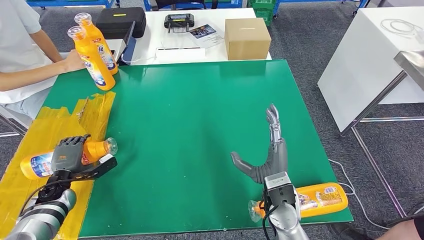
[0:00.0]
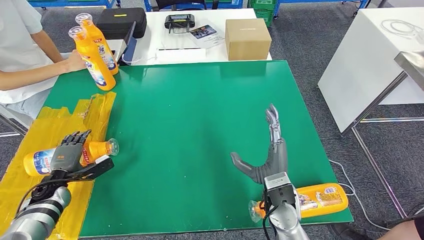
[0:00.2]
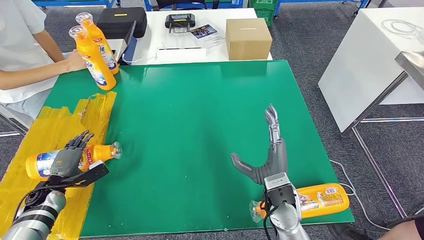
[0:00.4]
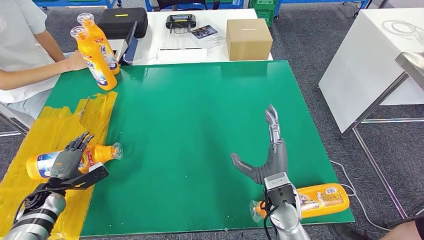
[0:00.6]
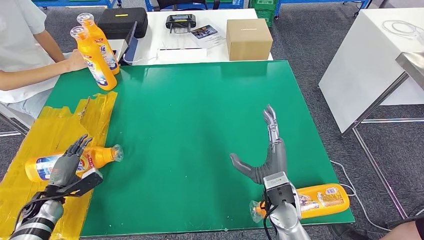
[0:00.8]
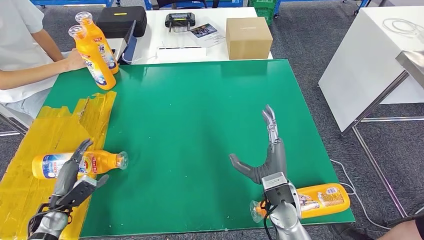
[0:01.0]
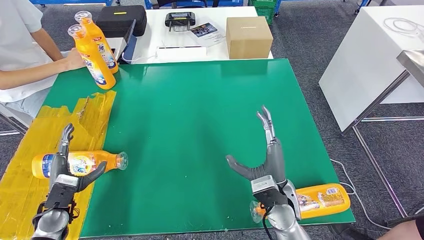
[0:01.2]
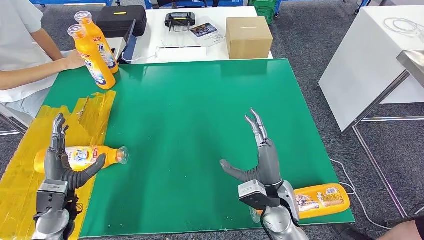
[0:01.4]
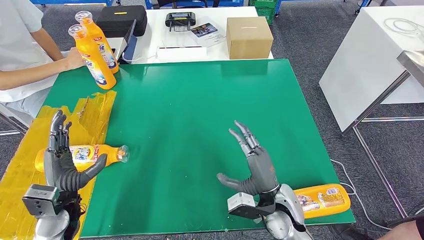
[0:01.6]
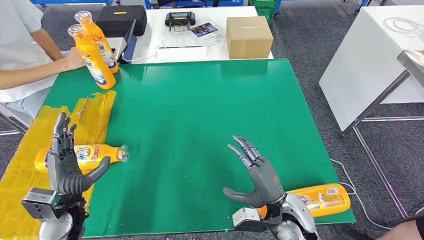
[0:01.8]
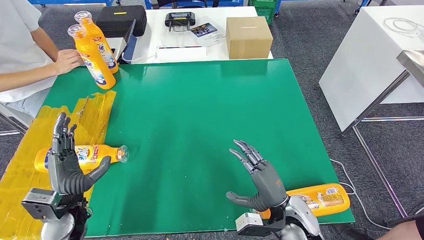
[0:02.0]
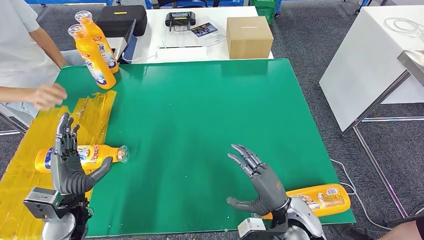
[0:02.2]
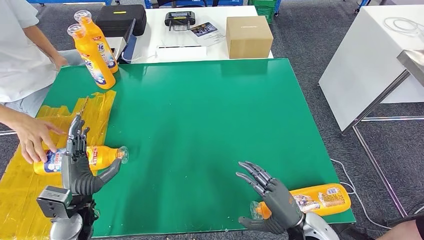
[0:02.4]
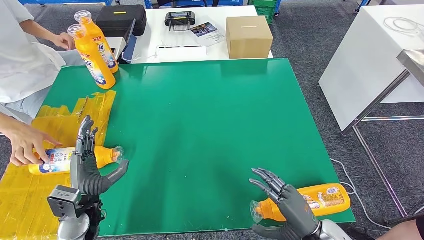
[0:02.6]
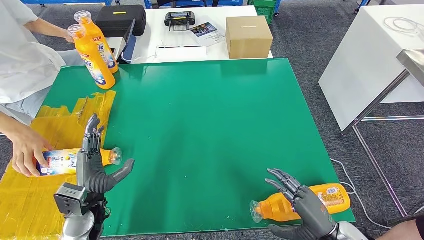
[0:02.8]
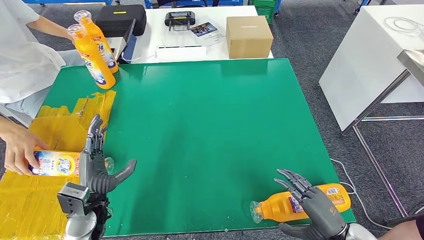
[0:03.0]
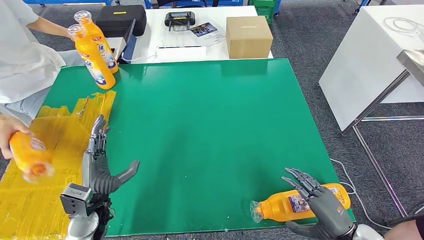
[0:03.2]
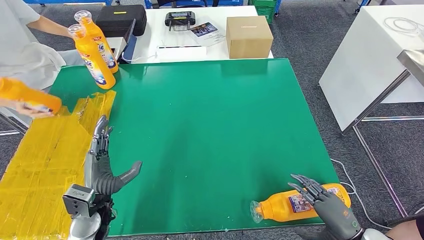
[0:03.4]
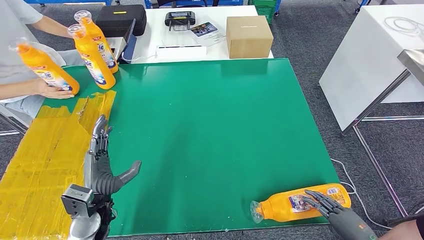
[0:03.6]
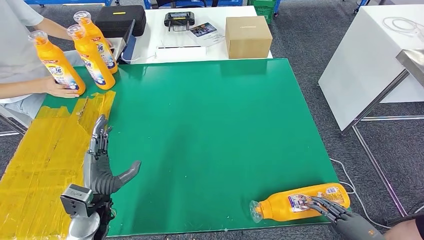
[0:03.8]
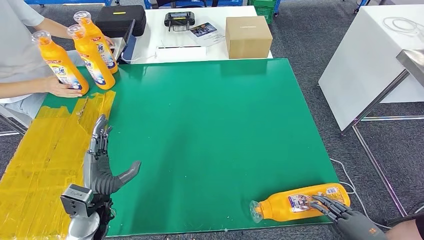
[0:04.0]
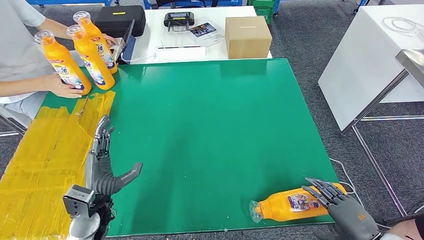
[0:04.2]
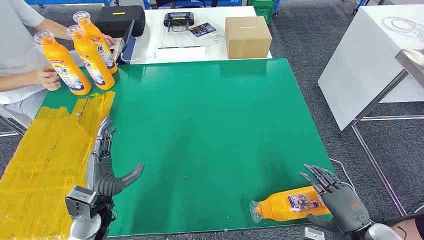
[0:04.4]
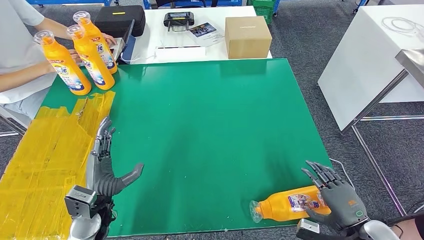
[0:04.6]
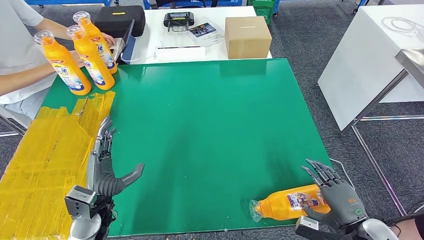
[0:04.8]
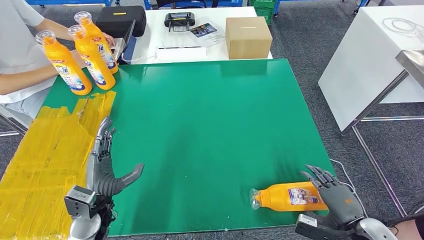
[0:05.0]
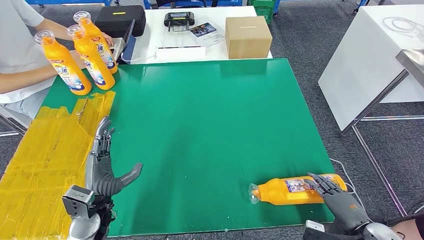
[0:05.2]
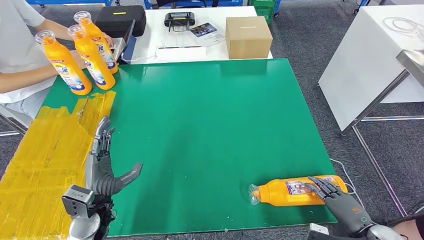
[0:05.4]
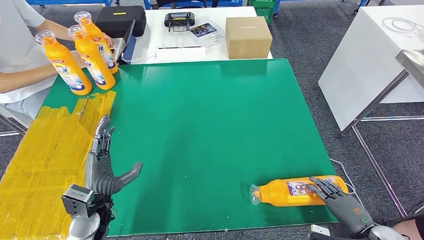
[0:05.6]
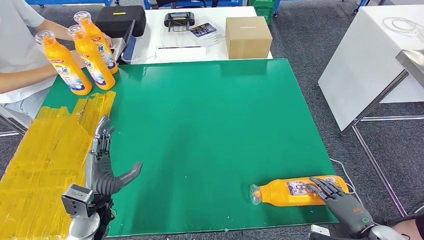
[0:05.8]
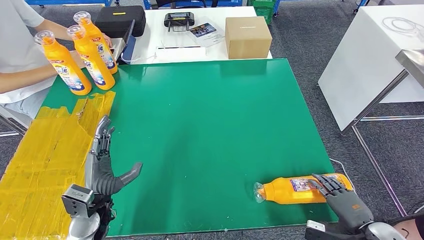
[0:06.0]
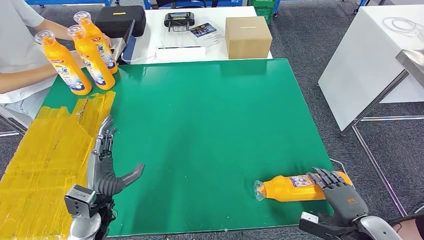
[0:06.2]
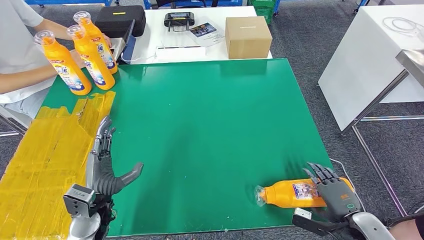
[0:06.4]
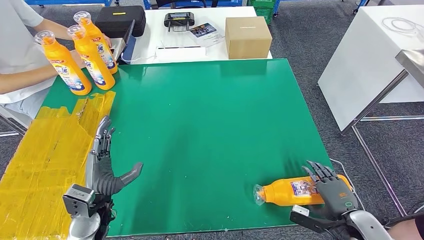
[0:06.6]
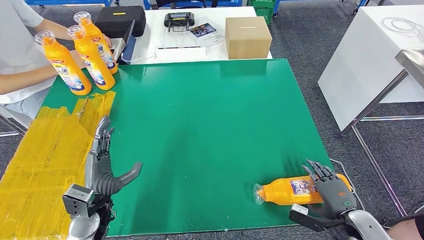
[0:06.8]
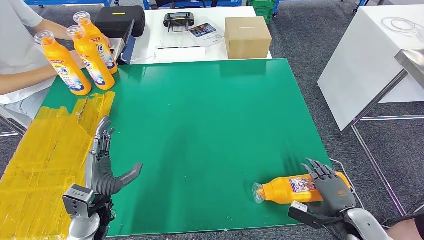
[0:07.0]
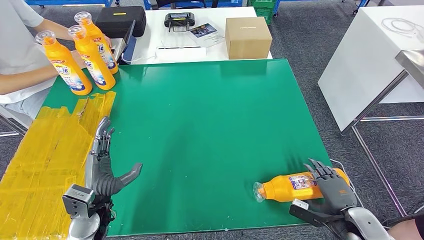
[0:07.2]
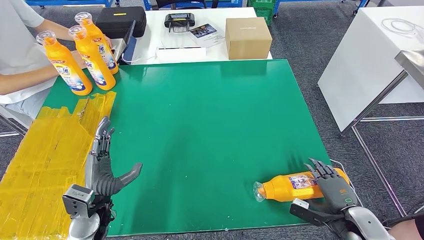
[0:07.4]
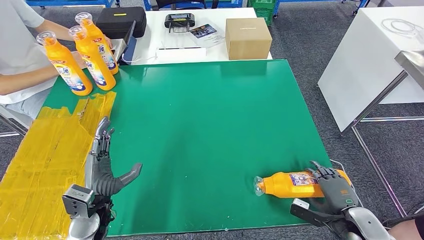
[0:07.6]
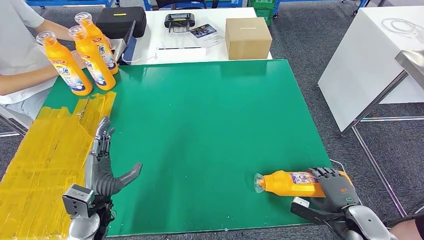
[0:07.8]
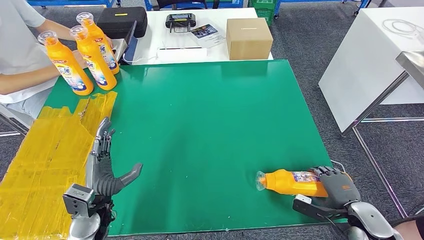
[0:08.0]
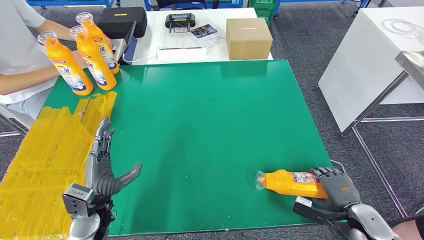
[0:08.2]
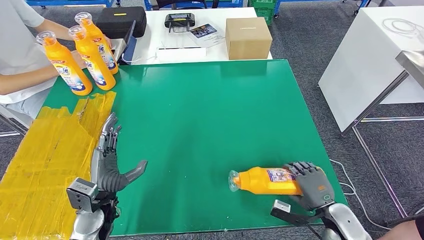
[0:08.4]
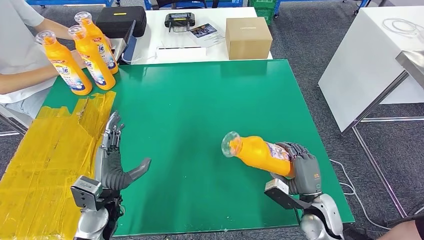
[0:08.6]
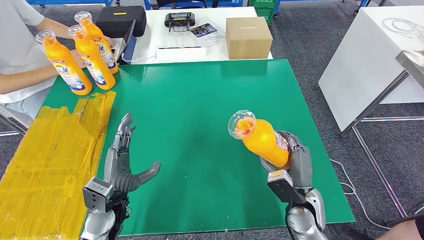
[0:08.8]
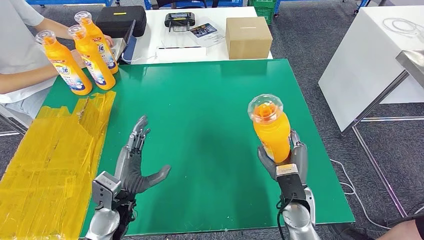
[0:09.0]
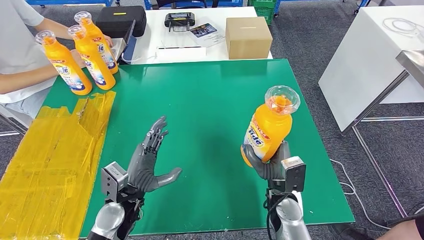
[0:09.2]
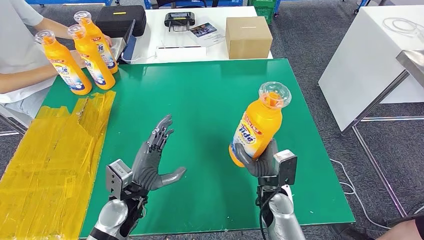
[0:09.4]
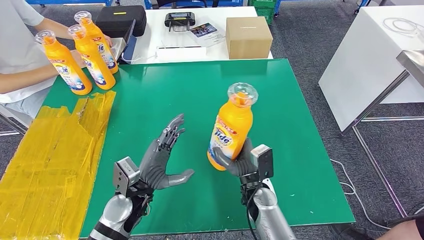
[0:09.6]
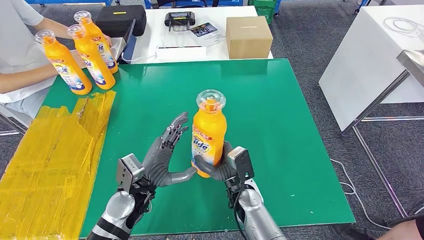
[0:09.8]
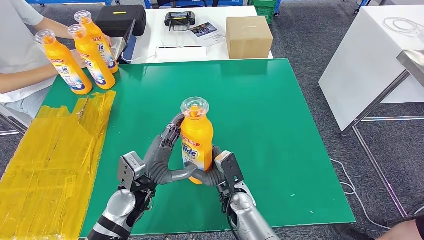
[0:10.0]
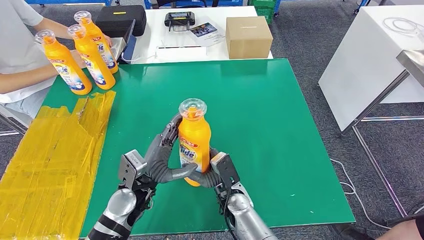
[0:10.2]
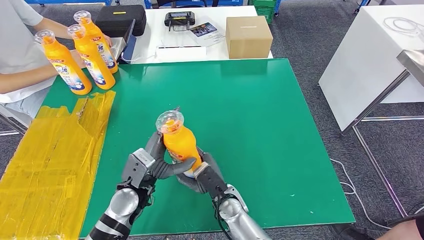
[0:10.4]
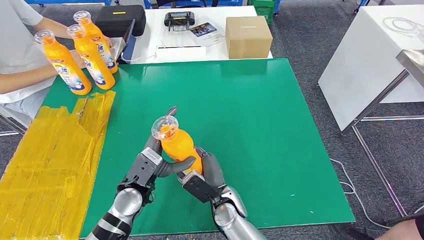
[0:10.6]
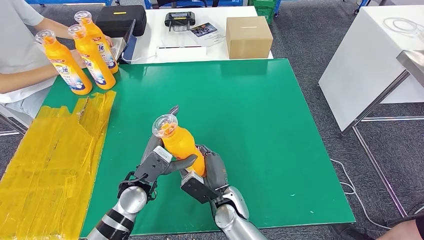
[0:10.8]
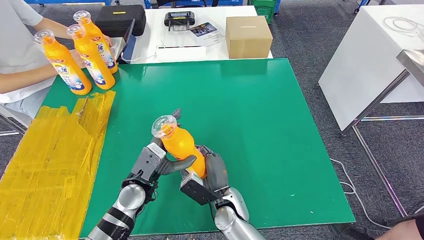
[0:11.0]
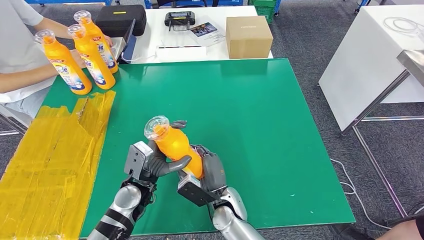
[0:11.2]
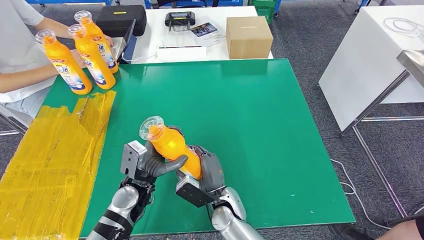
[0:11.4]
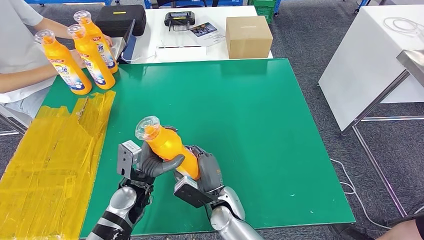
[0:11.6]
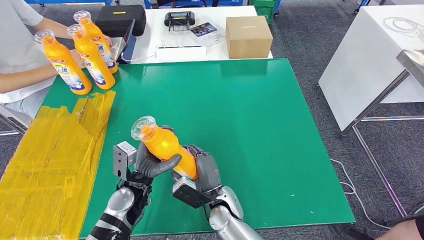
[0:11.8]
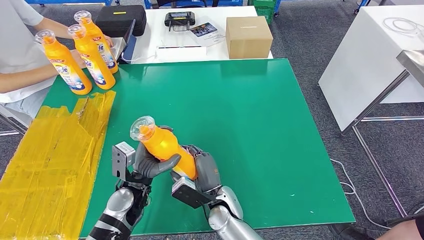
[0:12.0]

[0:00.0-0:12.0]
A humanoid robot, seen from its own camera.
Step, 0:04.0 to 0:11.4: Pick up the bottle from the table.
0:00.0 to 0:01.6: The left hand shifts some 15 cm to the right, upward and backward.
0:01.6 to 0:03.0: The left hand moves to the right, approximately 5 cm, while the right hand goes about 20 cm to the right and backward.
0:03.0 to 0:04.4: The right hand shifts roughly 5 cm to the right.
0:04.4 to 0:06.0: The hands move only a little.
0:06.0 to 0:07.6: The right hand moves about 5 cm.
0:07.6 to 0:09.0: The left hand moves to the right, approximately 5 cm; the right hand is displaced to the left by approximately 20 cm.
0:09.0 to 0:10.4: The right hand travels to the left by about 15 cm. The left hand moves approximately 5 cm.

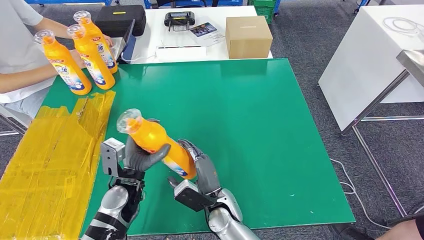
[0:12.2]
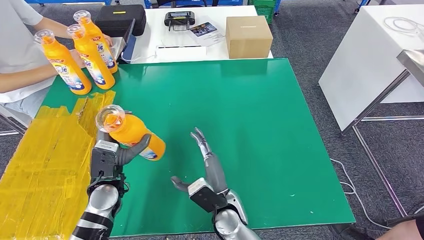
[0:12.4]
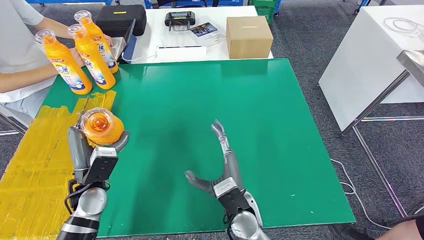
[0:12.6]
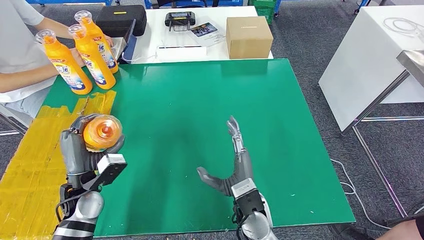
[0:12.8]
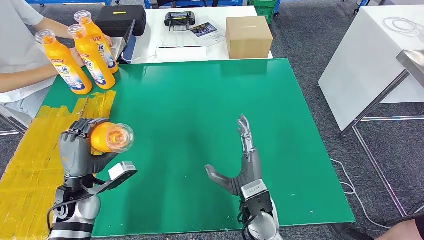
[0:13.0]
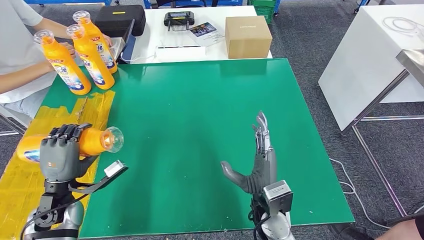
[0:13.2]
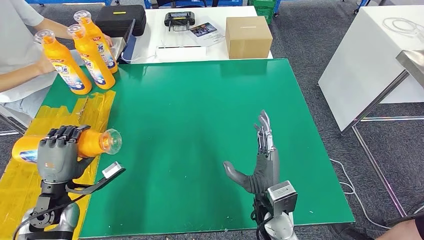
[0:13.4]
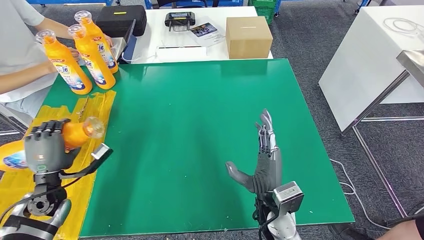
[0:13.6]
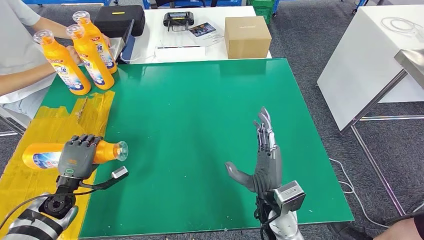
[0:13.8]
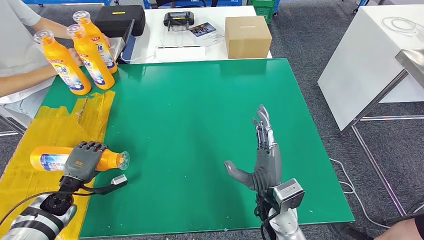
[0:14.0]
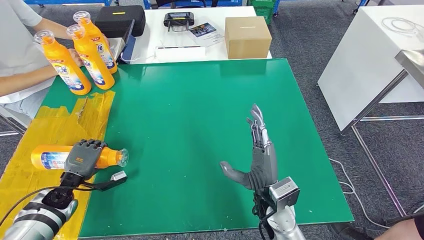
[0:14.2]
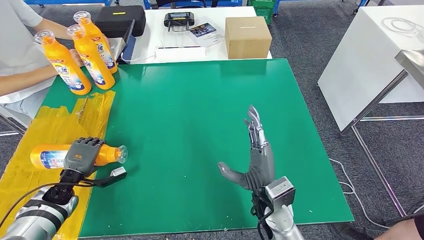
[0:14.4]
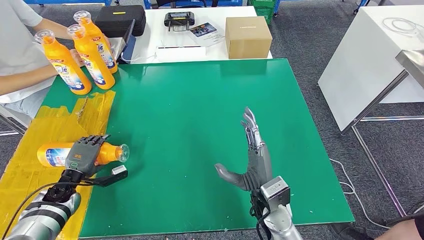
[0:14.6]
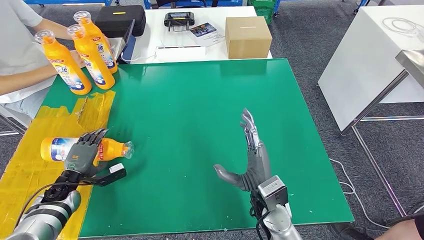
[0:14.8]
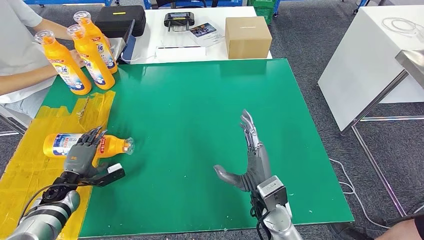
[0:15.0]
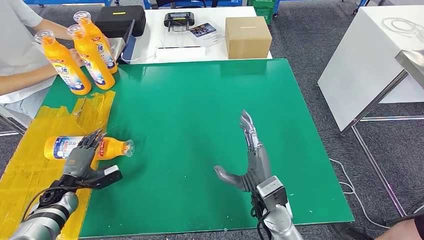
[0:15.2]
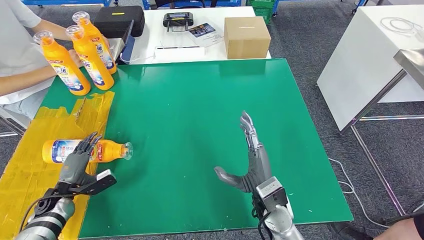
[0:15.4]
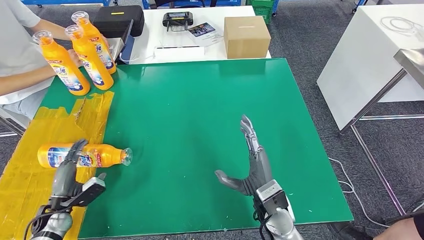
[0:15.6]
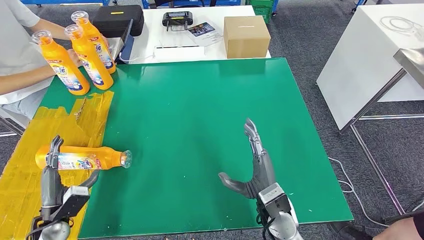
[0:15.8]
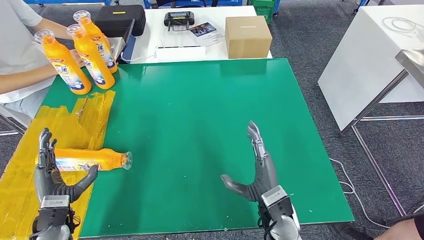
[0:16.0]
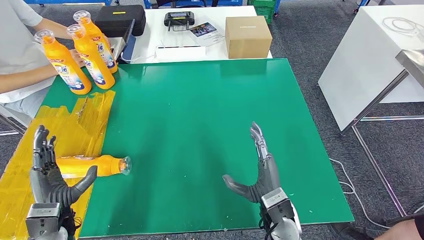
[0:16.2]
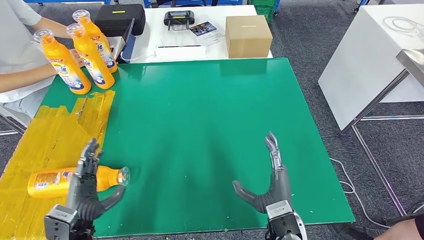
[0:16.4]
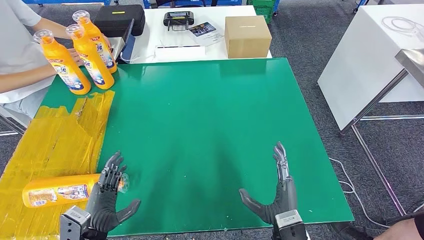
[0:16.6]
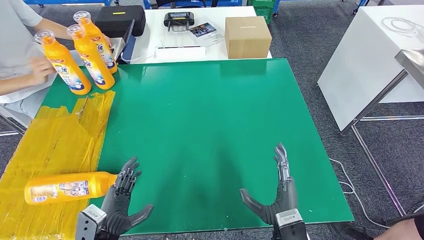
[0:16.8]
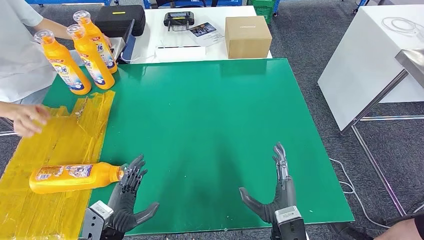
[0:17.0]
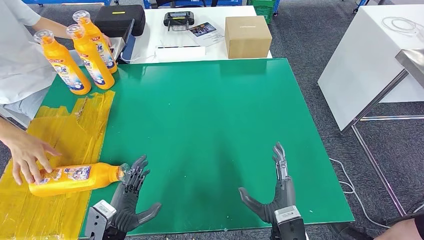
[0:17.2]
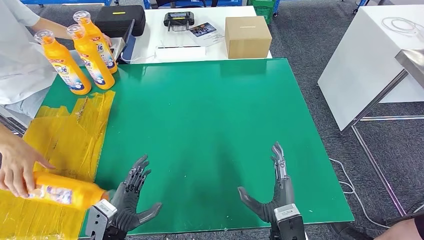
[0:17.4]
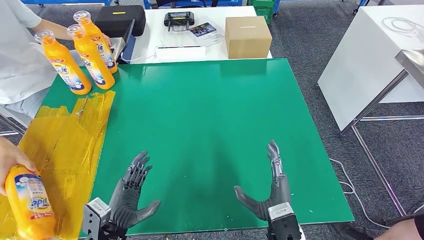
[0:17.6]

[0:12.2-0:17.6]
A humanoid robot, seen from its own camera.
Step, 0:12.2 to 0:17.6: Flip the bottle to face forward.
0:12.2 to 0:13.6: The right hand goes roughly 15 cm to the right and upward. The left hand heads to the left, covering some 20 cm.
0:13.6 to 0:15.0: The left hand is displaced downward by about 10 cm.
0:15.0 to 0:16.2: The left hand heads backward, upward and to the right, covering roughly 15 cm.
0:16.2 to 0:17.6: The right hand ends up approximately 5 cm from where it was; the left hand shifts some 10 cm to the right.
